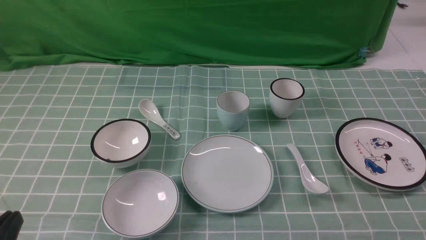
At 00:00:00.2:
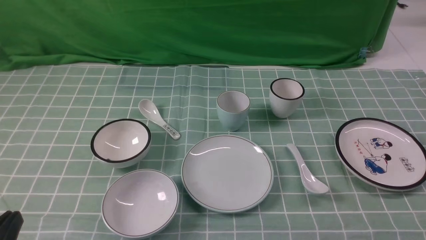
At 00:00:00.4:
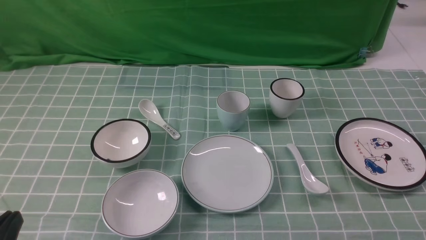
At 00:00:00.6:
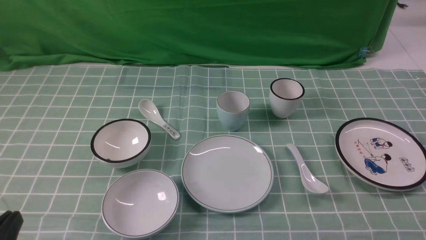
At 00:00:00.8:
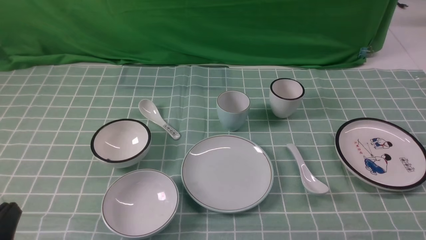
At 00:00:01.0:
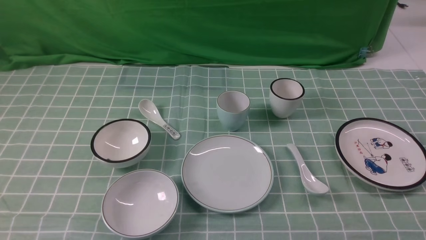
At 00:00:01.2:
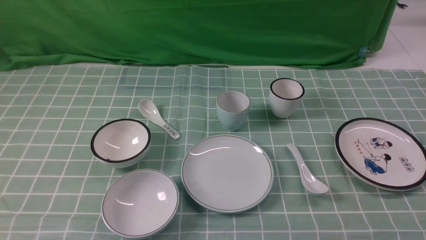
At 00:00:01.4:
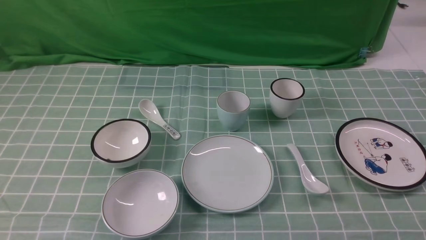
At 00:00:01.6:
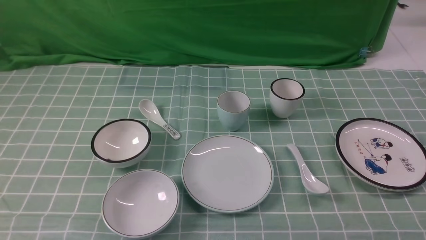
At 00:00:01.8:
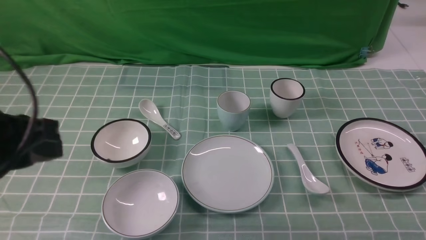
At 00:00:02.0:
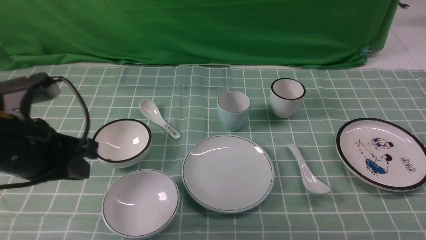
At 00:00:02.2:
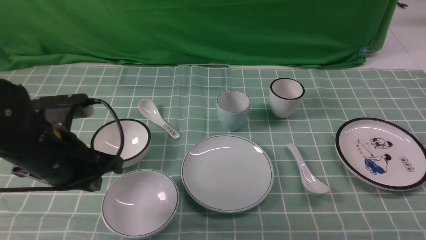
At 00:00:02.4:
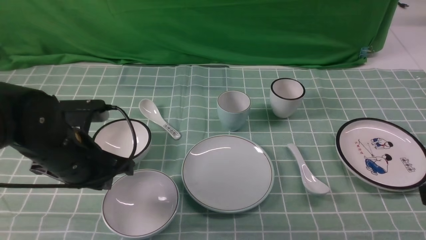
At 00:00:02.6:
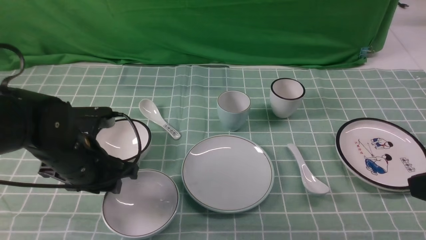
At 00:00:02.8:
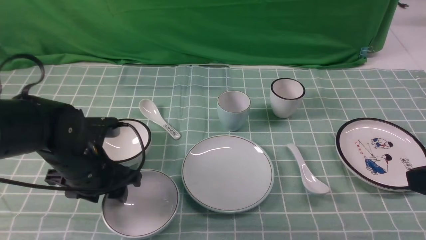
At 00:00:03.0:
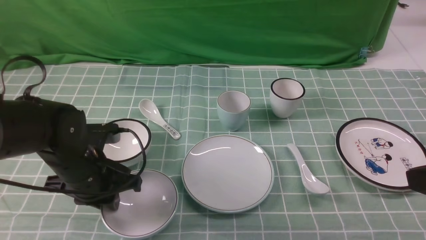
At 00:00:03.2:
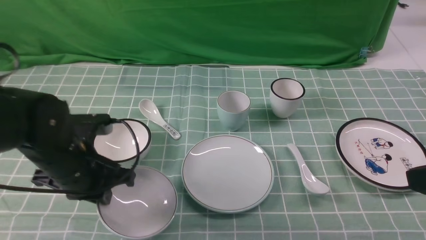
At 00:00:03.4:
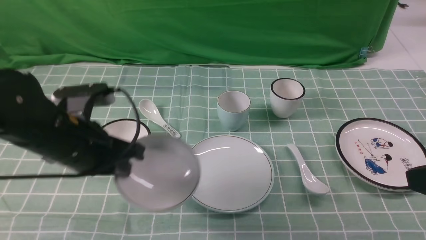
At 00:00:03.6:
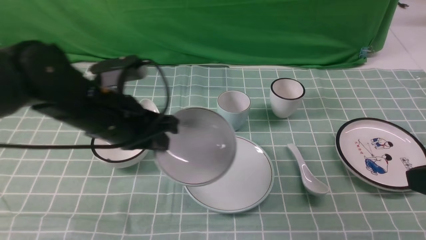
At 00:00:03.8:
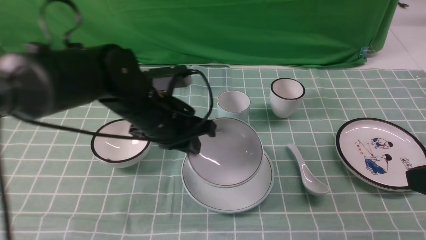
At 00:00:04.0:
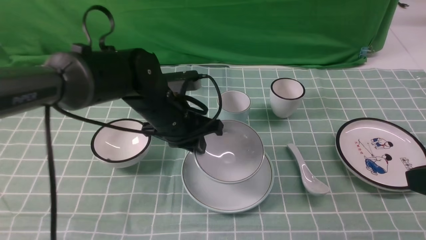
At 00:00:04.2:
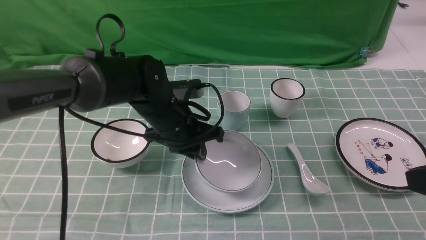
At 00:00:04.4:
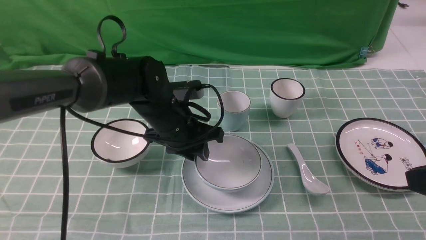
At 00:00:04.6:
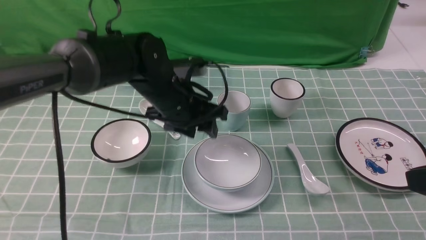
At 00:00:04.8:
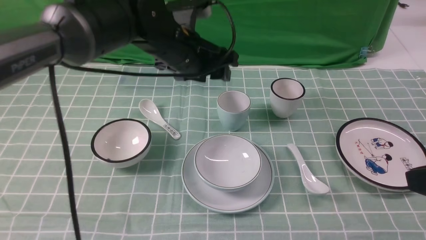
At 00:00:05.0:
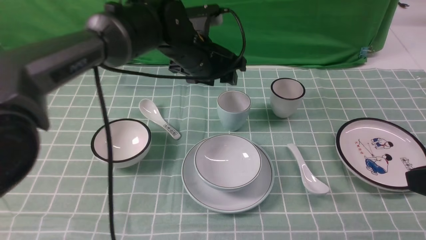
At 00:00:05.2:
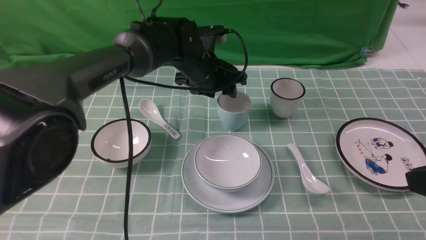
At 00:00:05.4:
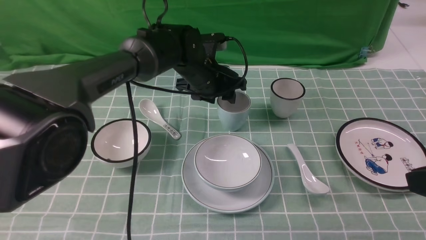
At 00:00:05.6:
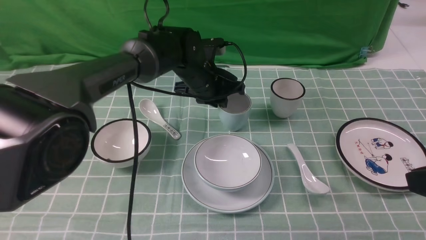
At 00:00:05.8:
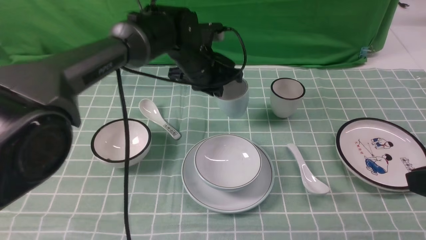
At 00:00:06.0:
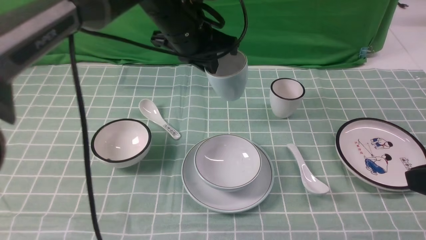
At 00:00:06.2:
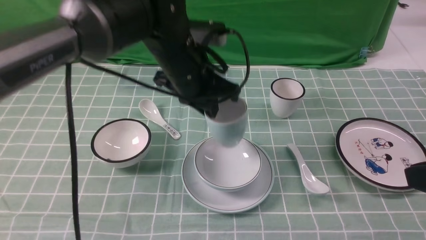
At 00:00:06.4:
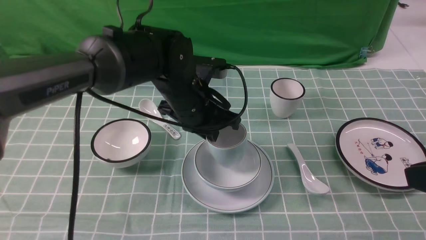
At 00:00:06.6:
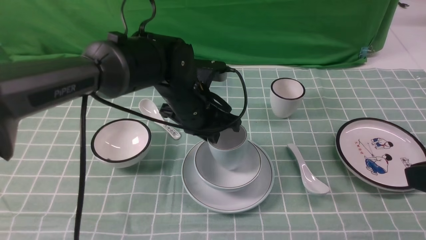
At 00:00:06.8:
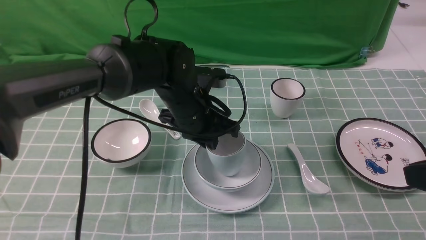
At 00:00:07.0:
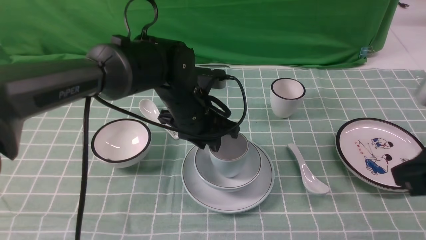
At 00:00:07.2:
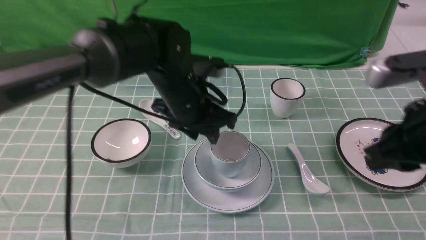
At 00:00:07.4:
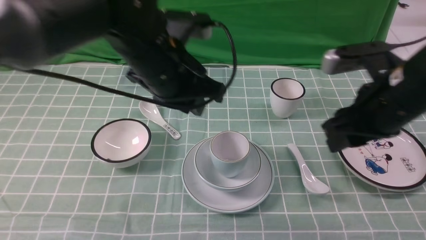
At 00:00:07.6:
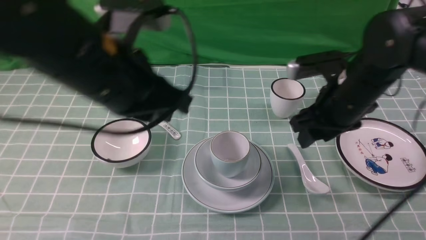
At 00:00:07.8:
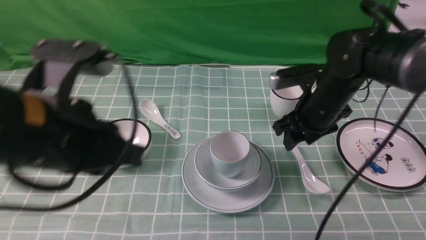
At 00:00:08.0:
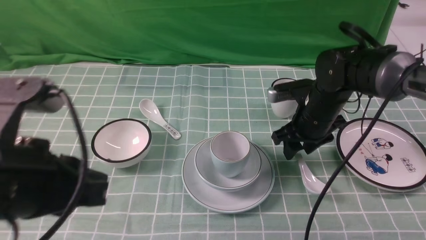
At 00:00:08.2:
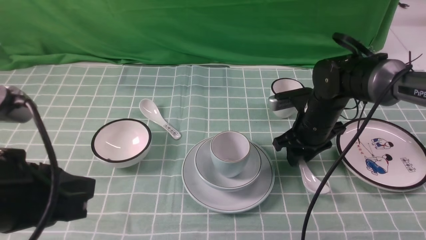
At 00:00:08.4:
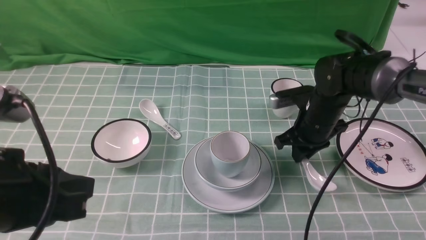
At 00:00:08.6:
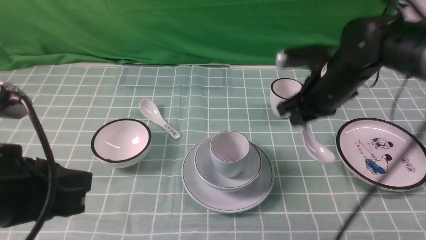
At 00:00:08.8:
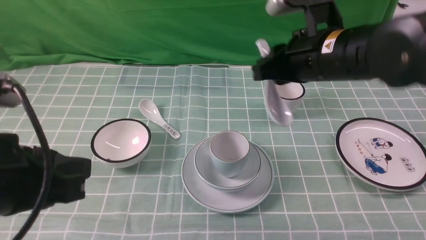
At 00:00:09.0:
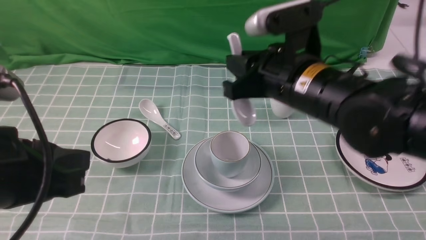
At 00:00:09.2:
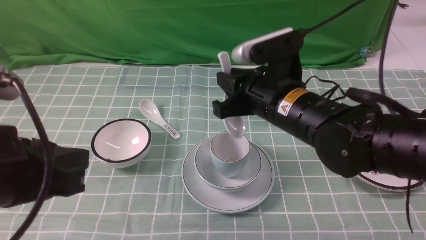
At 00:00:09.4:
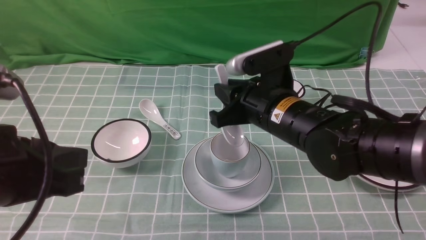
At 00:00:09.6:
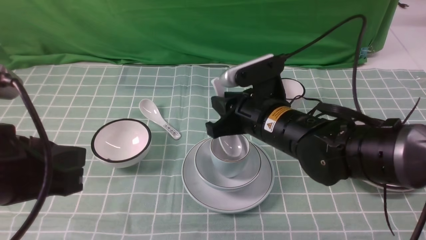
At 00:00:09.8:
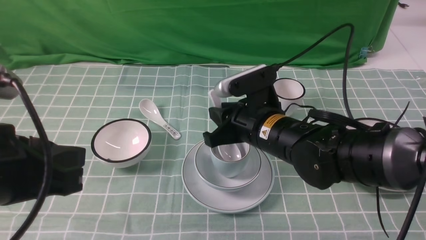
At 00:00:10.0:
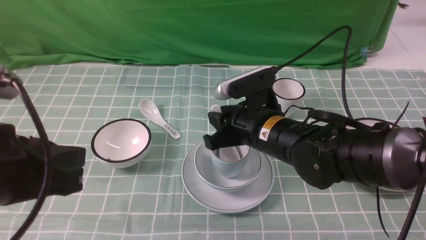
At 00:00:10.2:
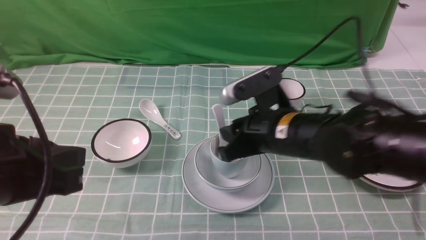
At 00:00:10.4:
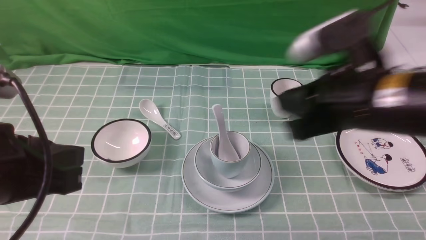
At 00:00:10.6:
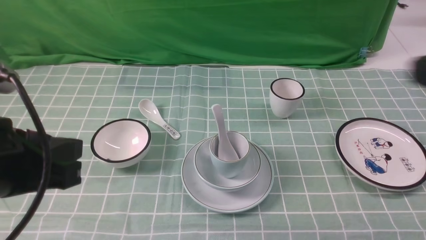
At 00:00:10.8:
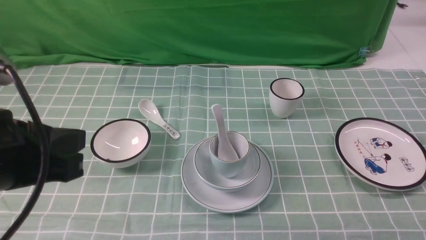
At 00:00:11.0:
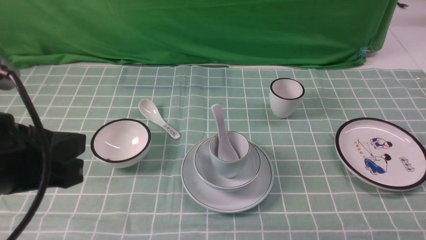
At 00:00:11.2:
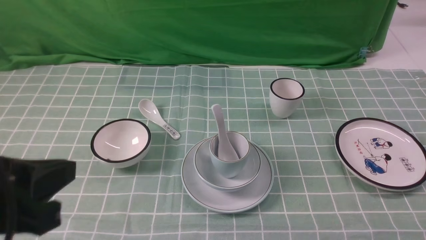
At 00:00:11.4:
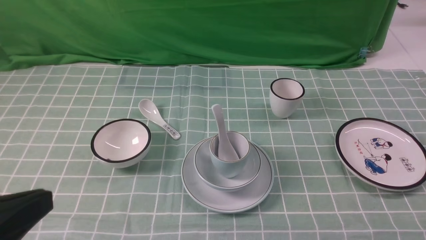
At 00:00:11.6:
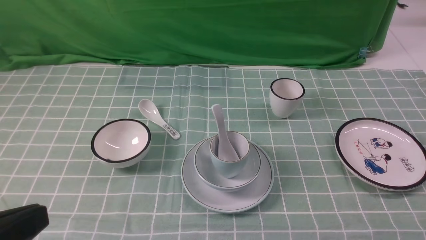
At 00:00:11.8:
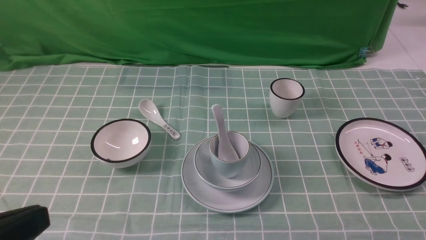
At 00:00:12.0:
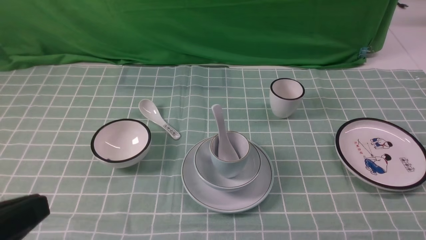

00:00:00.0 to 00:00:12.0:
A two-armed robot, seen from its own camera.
Task of the whole recording: place the bowls on the plates on the blue tablecloth, put the cups on the bowls, and place the spoons in the cups.
Step, 00:00:00.0 to 00:00:03.0: Grasp the bowl with the left gripper.
Step, 00:00:03.2 to 00:00:04.4: Place the bowl on the plate with the left gripper.
Step, 00:00:04.6 to 00:00:05.6: Grasp the cup with the left gripper.
Step, 00:00:05.8 to 00:00:07.0: Place the cup on the bowl with the left gripper.
Step, 00:00:07.2 to 00:00:08.2: Grasp the spoon with the right gripper.
Step, 00:00:08.4 to 00:00:10.0: Place the spoon on the cup with the right gripper.
00:00:01.6 to 00:00:03.0: The right gripper moves upward, forward and to the left, some 15 cm, and closes; the left gripper travels forward and downward by about 25 cm, and opens up.
00:00:03.0 to 00:00:04.4: The left gripper heads to the right and forward, covering some 15 cm, and closes, then opens again.
00:00:04.4 to 00:00:06.0: The left gripper moves upward and forward, approximately 10 cm, and opens and closes again.
00:00:06.0 to 00:00:07.6: The right gripper moves forward and to the left, approximately 20 cm, and opens. The left gripper is displaced backward and upward by approximately 15 cm, and opens and closes again.
00:00:07.6 to 00:00:09.0: The left gripper shifts approximately 15 cm backward and to the left, while the right gripper moves to the left, about 10 cm, travels downward and back again, some 10 cm each way, and closes its fingers.
00:00:09.0 to 00:00:10.4: The right gripper is displaced backward by roughly 5 cm, and moves some 10 cm downward and comes back.
00:00:10.4 to 00:00:12.0: The left gripper goes approximately 10 cm backward. The right gripper travels backward and to the right by some 30 cm.

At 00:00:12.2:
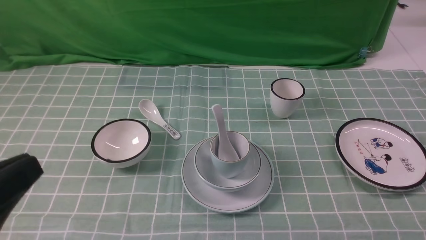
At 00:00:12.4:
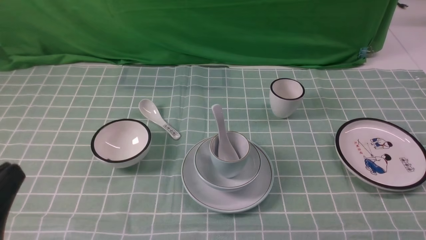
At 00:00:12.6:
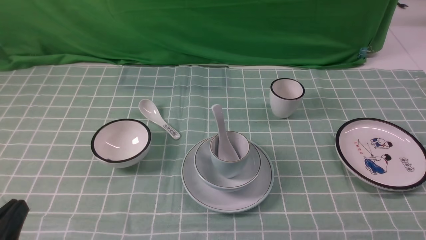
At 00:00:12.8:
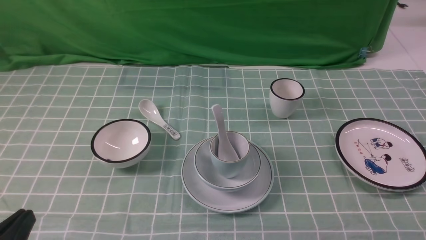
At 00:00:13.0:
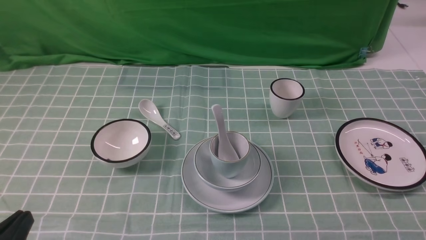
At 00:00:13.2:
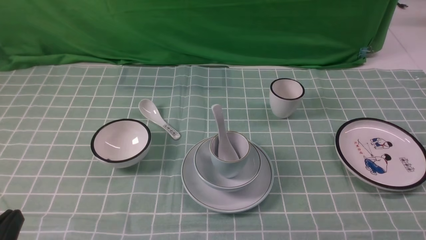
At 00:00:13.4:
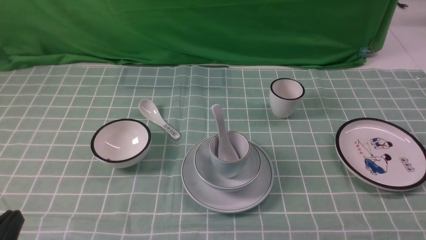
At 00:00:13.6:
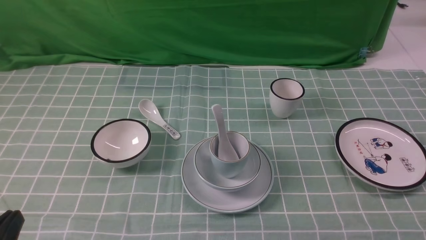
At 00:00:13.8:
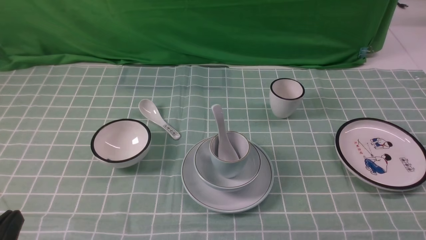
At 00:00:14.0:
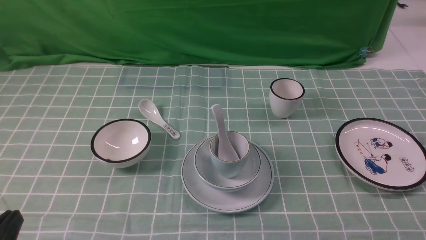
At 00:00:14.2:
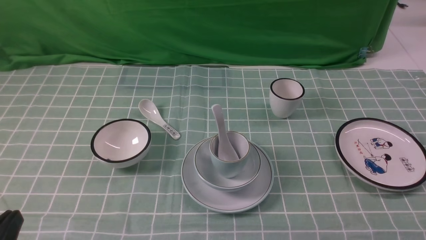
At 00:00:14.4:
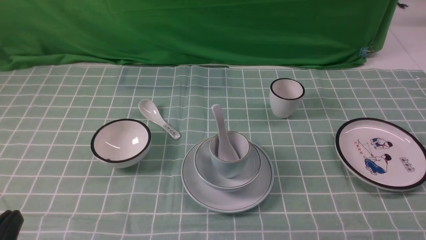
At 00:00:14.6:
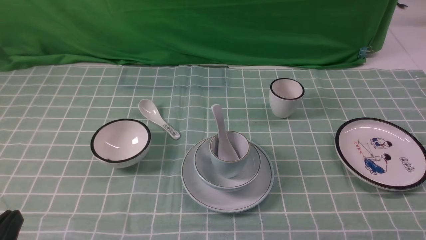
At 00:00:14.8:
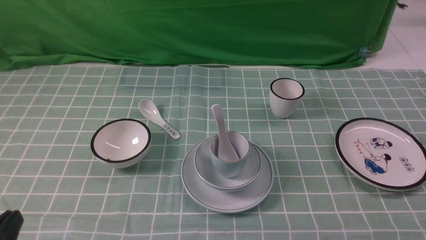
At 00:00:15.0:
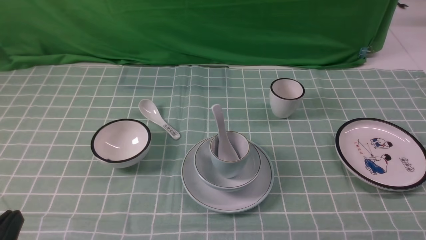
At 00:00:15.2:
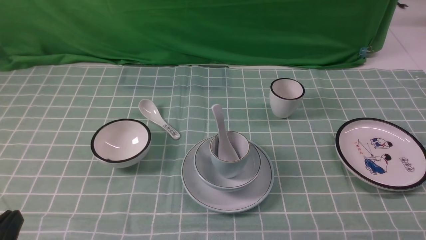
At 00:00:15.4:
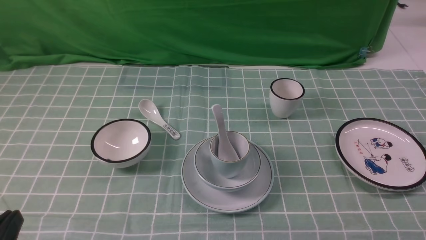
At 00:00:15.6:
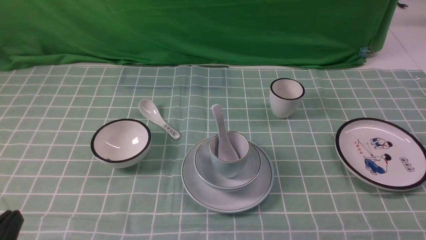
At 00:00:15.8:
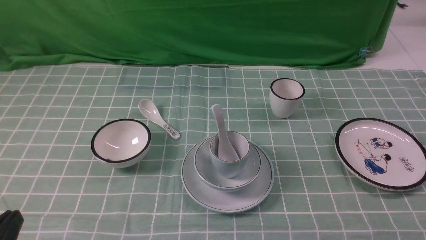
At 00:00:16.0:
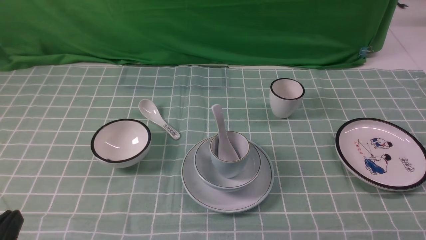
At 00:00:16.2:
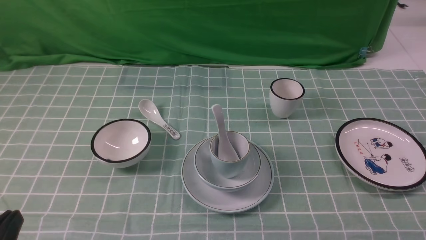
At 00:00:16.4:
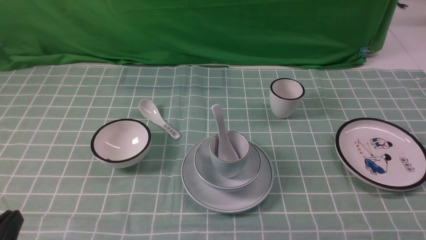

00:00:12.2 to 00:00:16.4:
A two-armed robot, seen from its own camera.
Task of the whole recording: place the bowls on the plates on the blue tablecloth, put the cups on the bowls, and place the spoons in the cups.
00:00:12.2 to 00:00:13.6: The left gripper heads downward, covering some 10 cm.
